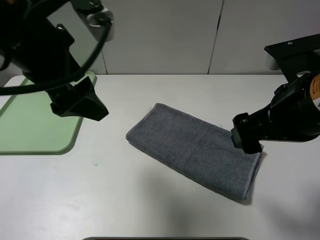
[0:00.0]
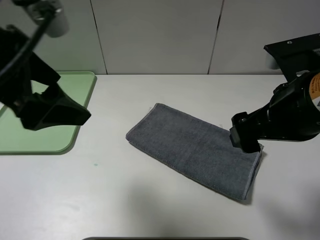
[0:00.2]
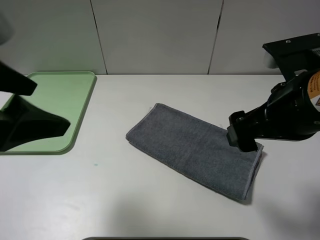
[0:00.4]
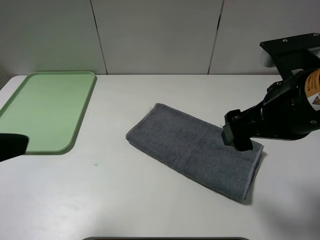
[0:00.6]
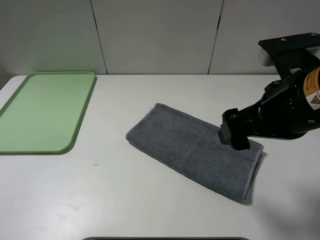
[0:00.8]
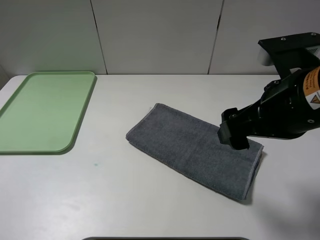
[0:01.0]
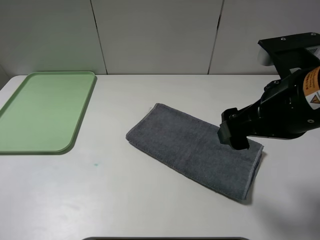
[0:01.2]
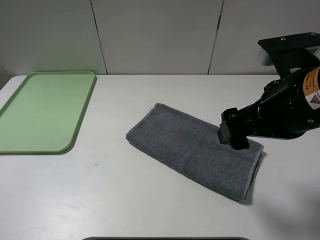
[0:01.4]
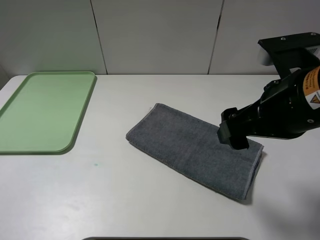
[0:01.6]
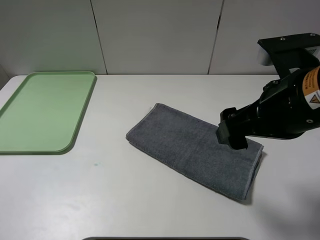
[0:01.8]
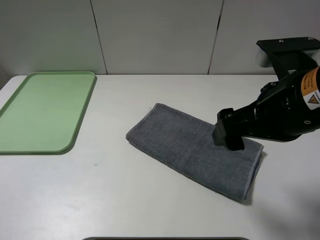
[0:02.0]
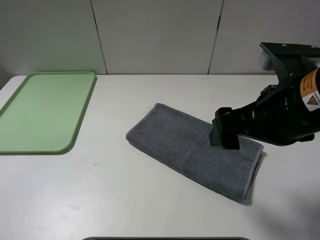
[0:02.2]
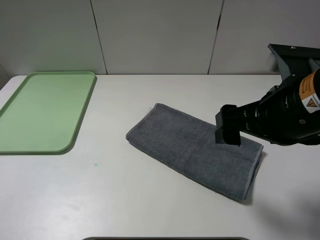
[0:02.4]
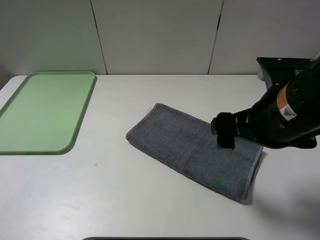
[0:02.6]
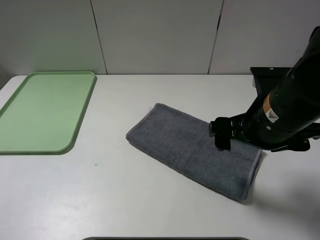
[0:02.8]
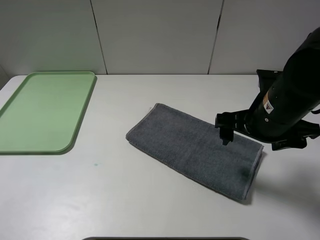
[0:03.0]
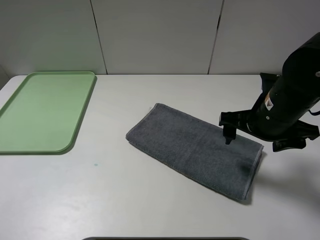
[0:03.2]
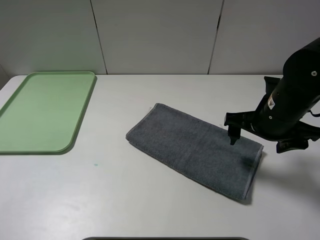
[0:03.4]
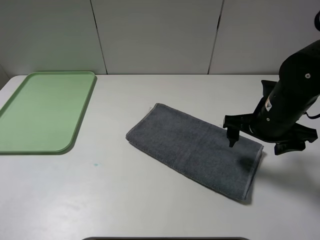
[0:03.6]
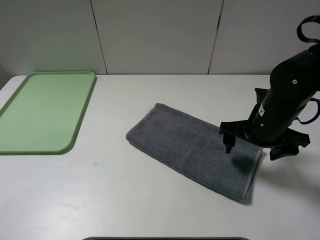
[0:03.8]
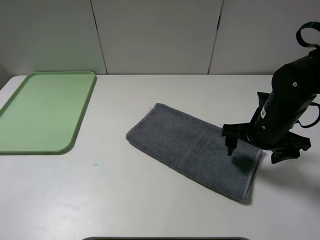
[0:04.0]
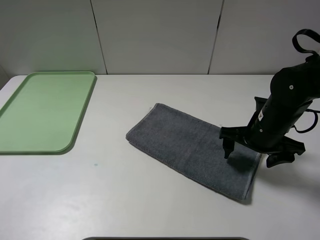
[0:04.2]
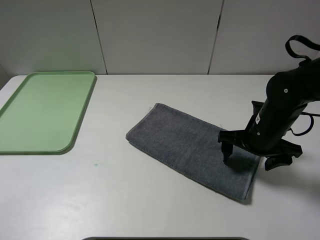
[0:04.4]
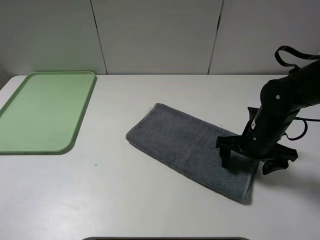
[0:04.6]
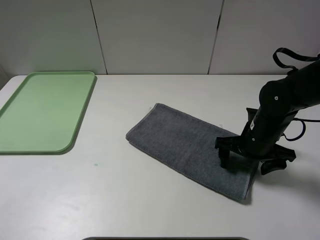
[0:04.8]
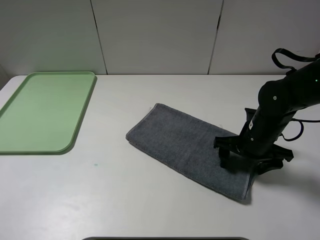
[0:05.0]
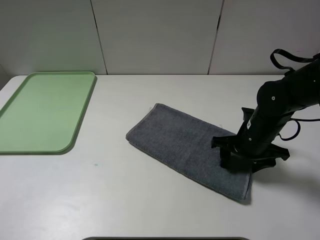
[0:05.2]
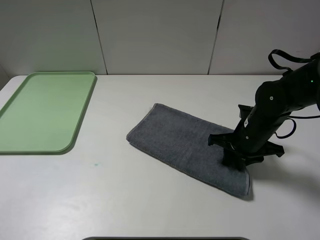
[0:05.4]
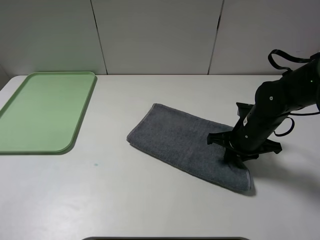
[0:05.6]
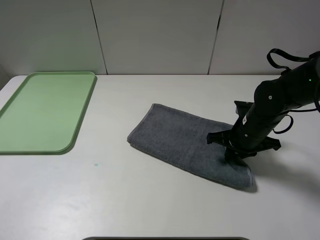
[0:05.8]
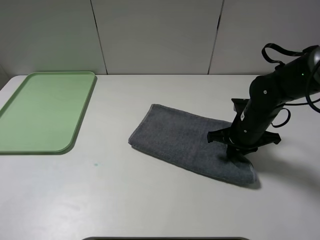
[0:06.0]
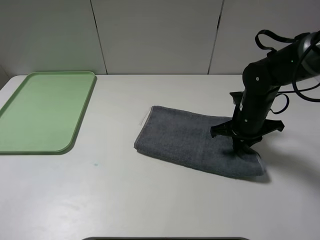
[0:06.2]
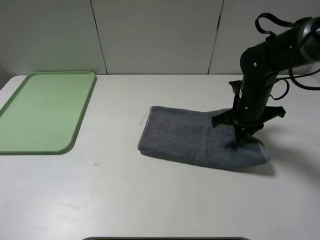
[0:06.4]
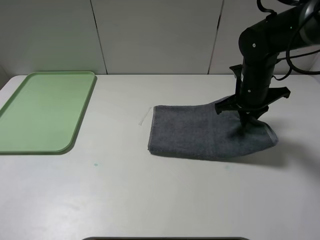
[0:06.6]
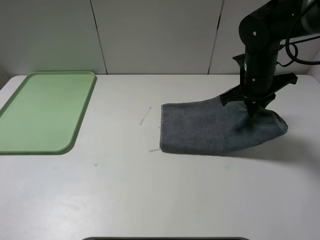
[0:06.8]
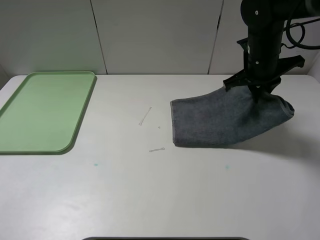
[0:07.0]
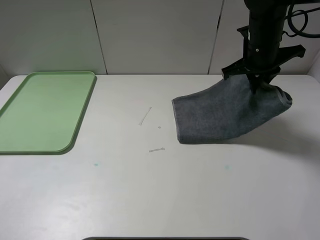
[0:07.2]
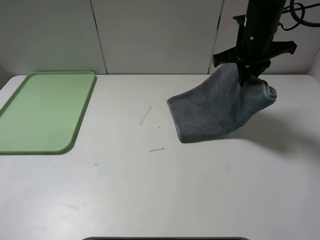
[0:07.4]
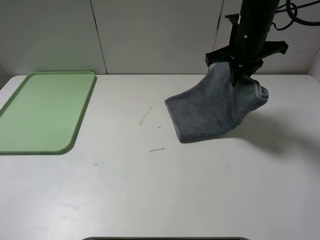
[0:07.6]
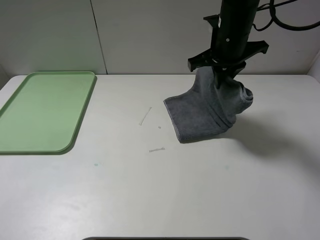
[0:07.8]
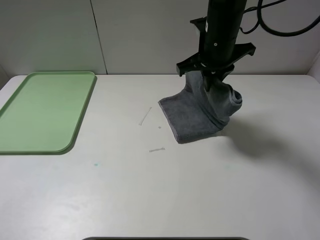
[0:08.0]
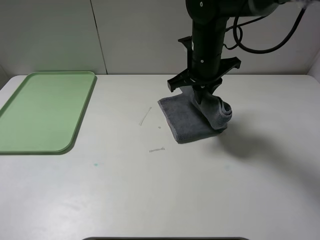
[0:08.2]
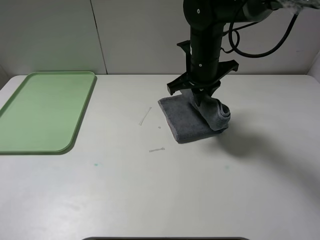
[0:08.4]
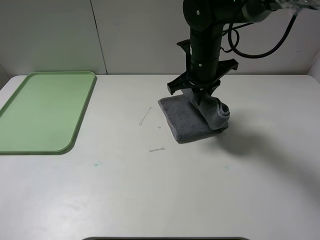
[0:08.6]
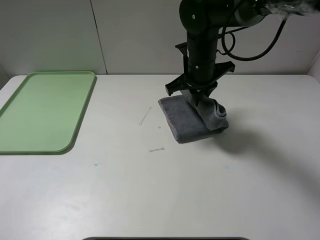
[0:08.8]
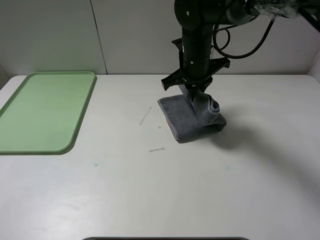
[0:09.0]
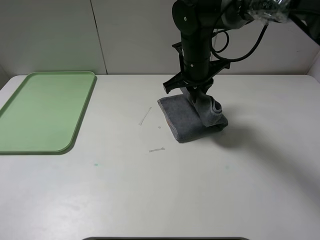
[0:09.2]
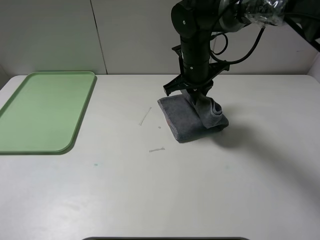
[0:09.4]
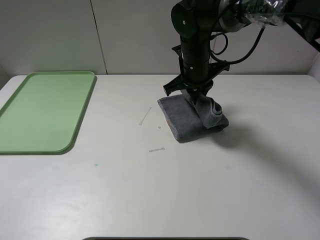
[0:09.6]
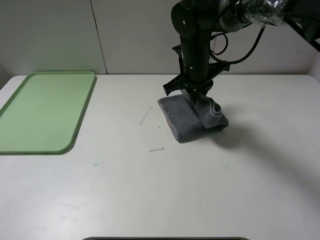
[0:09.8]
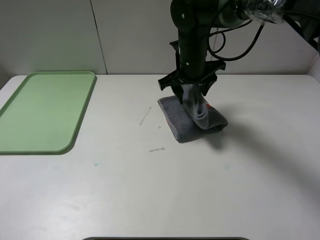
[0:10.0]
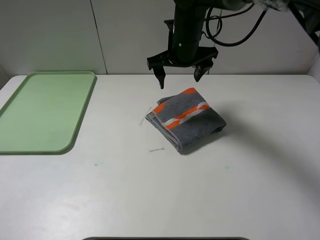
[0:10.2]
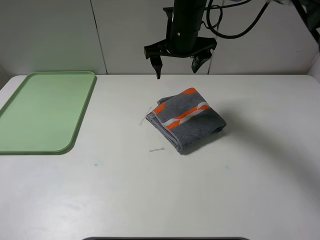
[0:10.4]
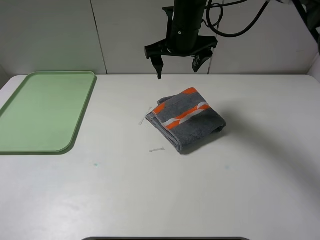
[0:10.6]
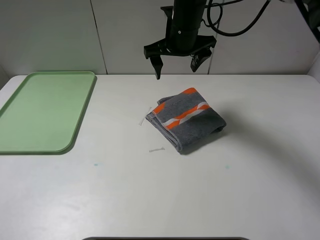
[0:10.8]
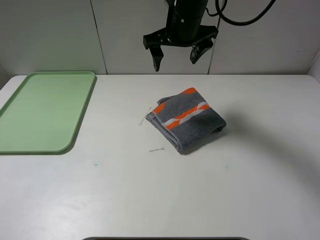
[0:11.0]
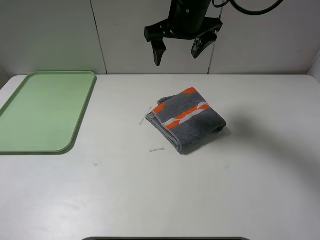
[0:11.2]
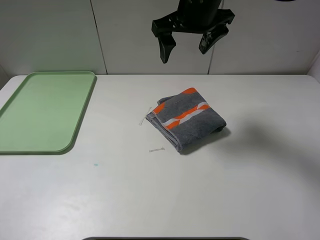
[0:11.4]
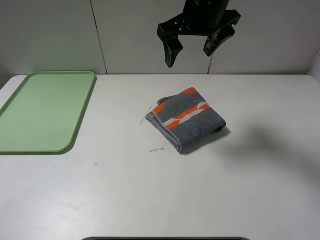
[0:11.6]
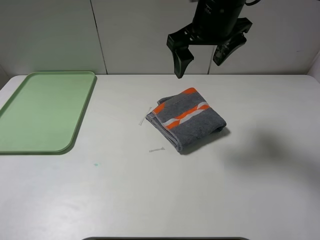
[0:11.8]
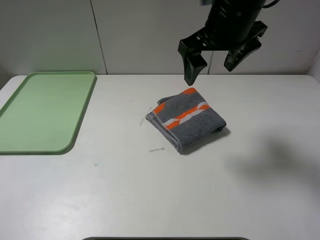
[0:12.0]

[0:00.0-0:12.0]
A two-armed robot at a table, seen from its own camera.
Step, 0:00.0 to 0:10.0: Fold the grey towel from right to left with right gripper.
0:00.0 to 0:01.6: The left gripper travels backward and to the left by about 25 cm.
0:01.6 to 0:03.0: The right gripper goes roughly 10 cm downward and forward.
0:03.0 to 0:04.4: The right gripper moves downward, some 10 cm.
0:04.4 to 0:06.0: The right gripper closes up.
0:06.0 to 0:07.6: The right gripper is displaced upward and forward by some 20 cm.
0:07.6 to 0:09.0: The right gripper shifts some 10 cm to the left and downward.
0:09.0 to 0:10.4: The right gripper travels upward by approximately 5 cm, and opens its fingers.
0:10.4 to 0:12.0: The right gripper heads backward, upward and to the right, covering some 15 cm.

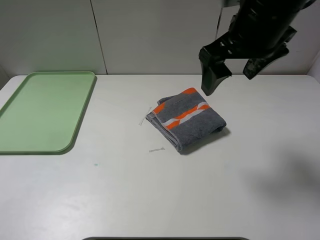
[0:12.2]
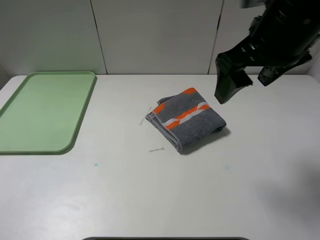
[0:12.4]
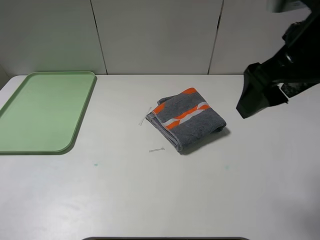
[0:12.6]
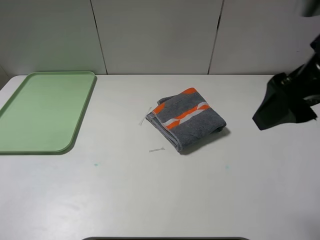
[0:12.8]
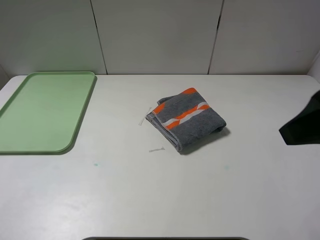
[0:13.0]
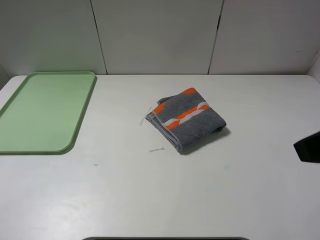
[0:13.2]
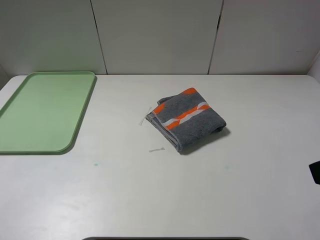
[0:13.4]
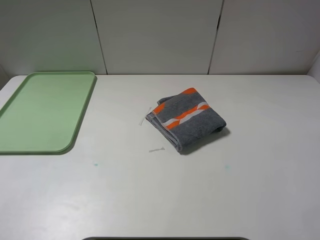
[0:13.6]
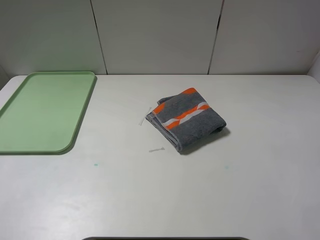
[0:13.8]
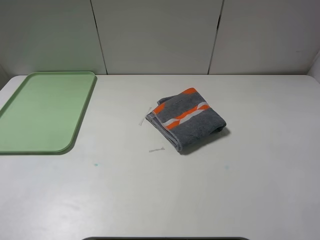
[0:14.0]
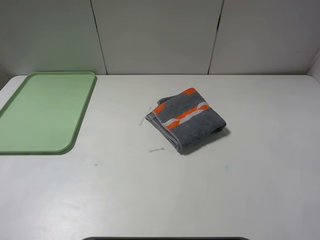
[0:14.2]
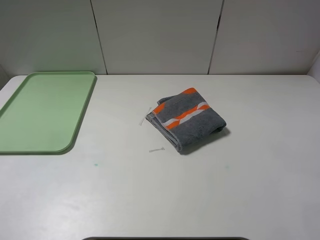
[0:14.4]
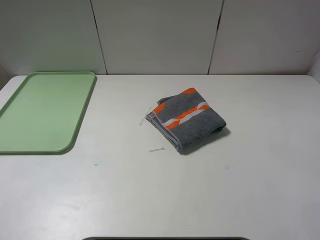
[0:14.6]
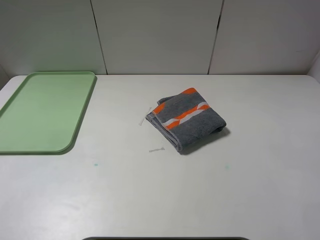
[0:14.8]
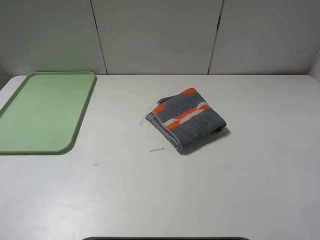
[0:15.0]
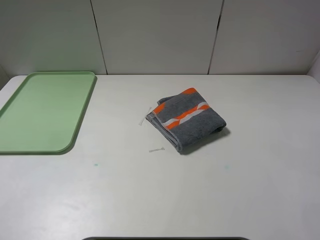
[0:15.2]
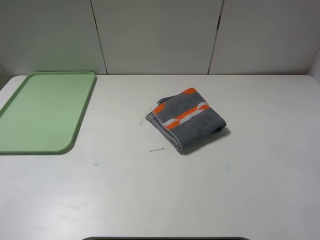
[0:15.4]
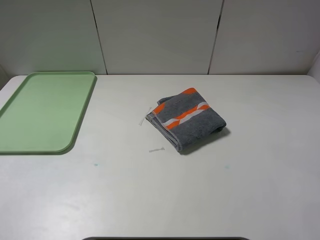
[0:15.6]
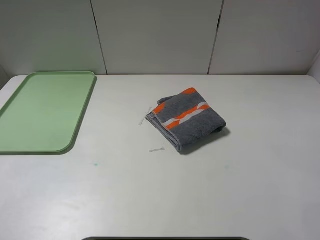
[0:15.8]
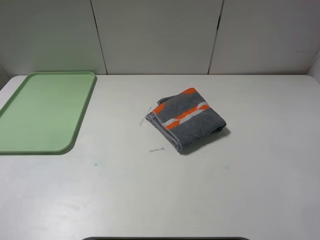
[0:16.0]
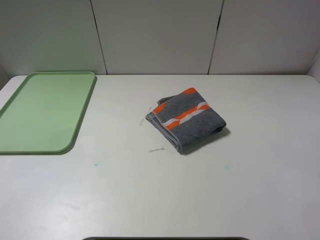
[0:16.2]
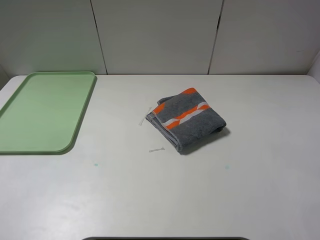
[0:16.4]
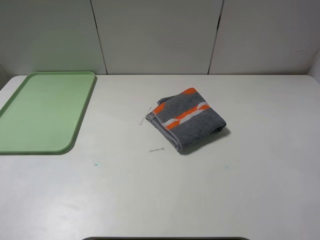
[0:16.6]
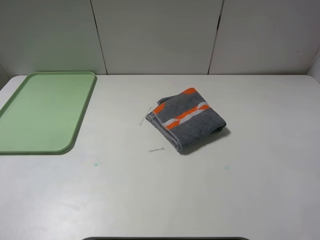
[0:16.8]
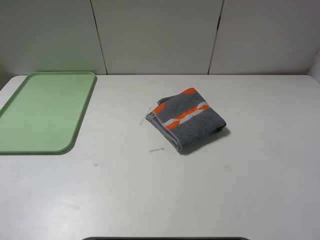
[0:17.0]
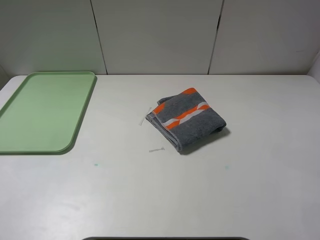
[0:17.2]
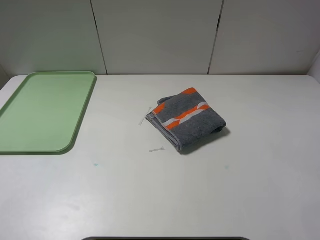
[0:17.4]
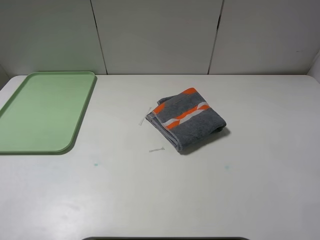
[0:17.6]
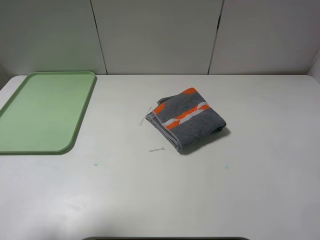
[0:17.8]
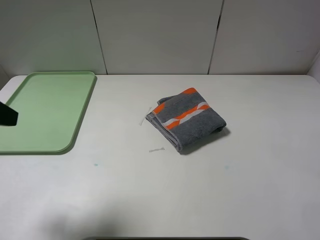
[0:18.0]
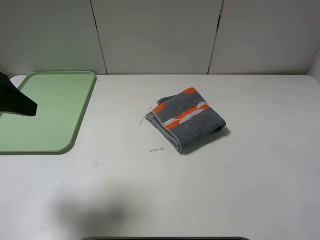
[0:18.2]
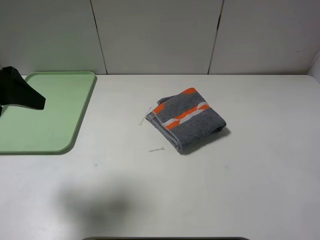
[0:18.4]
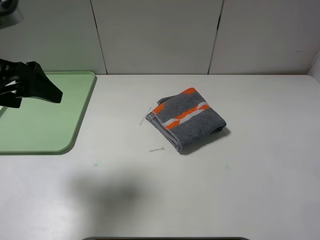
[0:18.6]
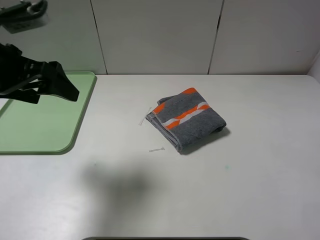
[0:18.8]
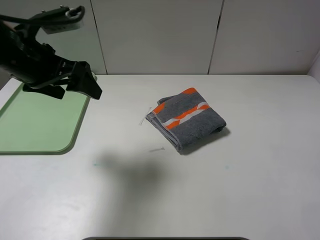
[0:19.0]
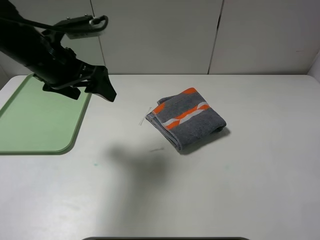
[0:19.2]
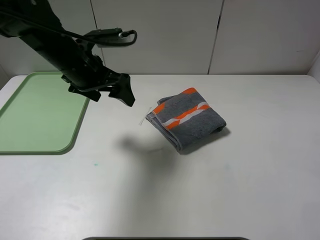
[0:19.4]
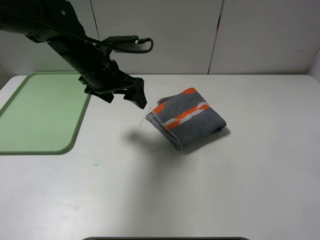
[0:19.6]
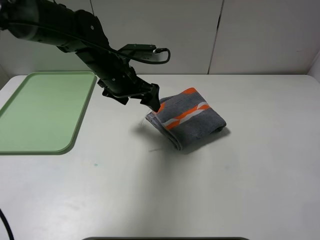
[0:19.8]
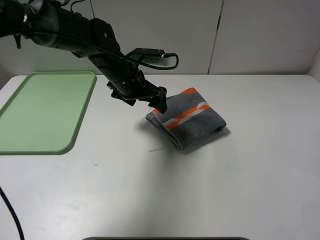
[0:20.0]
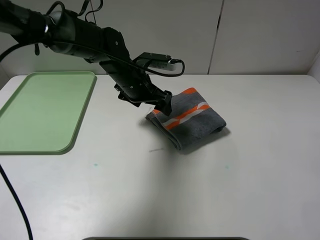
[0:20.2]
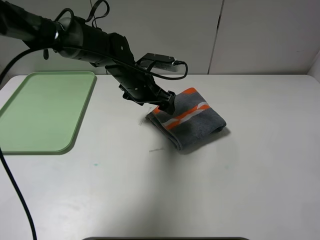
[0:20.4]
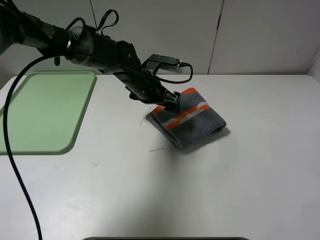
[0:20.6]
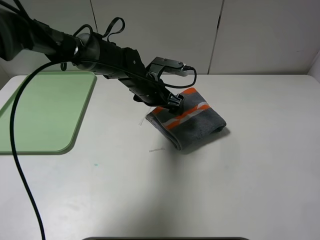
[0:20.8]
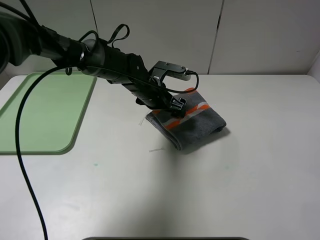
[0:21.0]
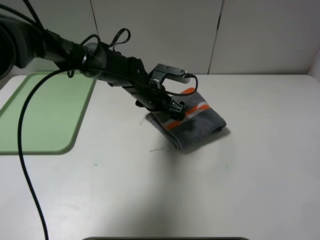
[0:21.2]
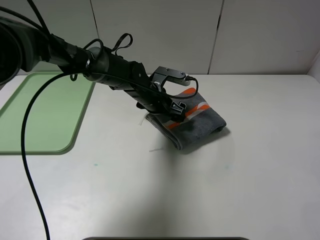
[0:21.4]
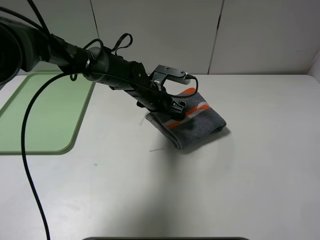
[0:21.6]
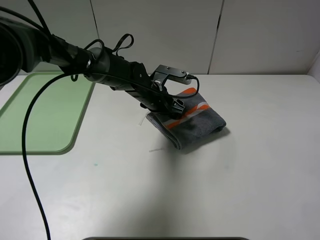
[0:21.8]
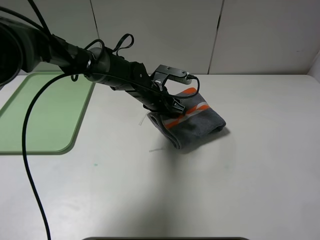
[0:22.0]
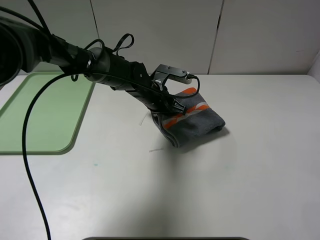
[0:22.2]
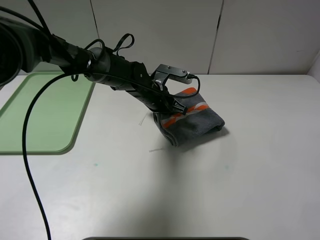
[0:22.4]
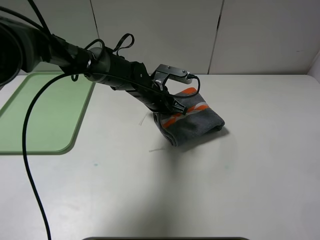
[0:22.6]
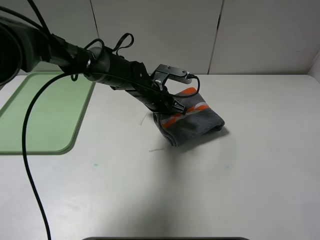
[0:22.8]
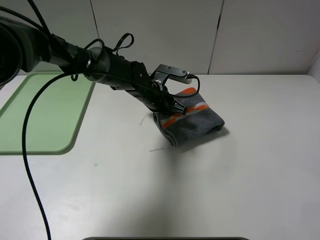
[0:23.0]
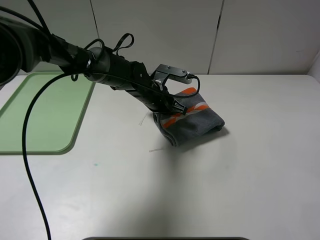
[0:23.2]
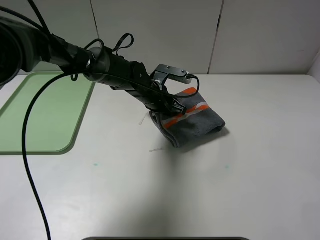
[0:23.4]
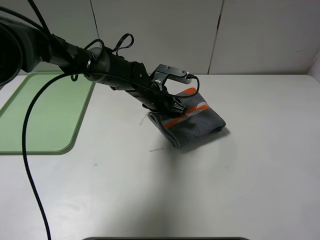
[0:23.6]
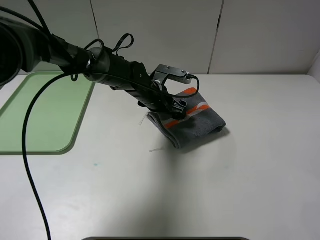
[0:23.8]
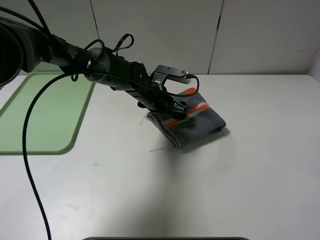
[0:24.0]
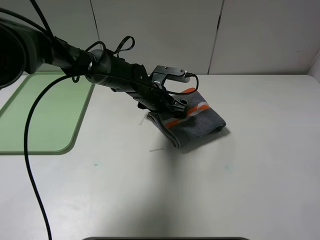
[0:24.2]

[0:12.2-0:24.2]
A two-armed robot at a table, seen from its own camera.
0:12.2 to 0:13.8: The right gripper travels backward and to the right by some 30 cm.
0:15.2 to 0:16.6: Both grippers stay put.
0:16.6 to 0:18.2: The left gripper heads forward, covering roughly 20 cm.
0:18.2 to 0:19.8: The left gripper goes about 30 cm to the right, forward and downward.
0:19.8 to 0:21.2: The left gripper moves downward and to the right, approximately 10 cm.
0:21.2 to 0:22.6: The left gripper closes up.
0:22.6 to 0:24.2: The left gripper opens.
